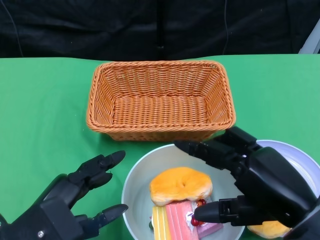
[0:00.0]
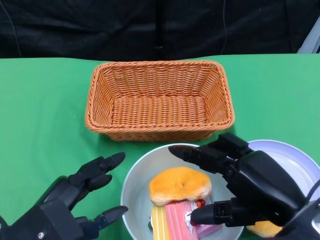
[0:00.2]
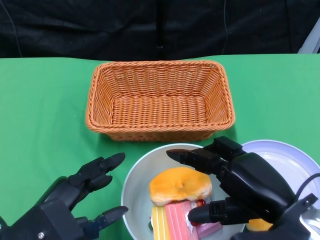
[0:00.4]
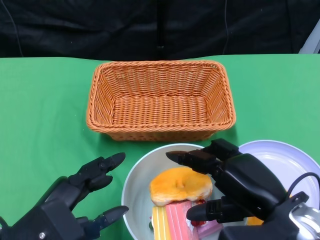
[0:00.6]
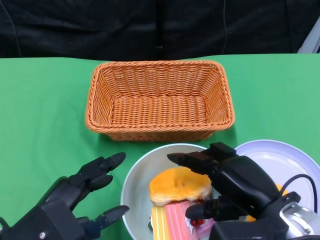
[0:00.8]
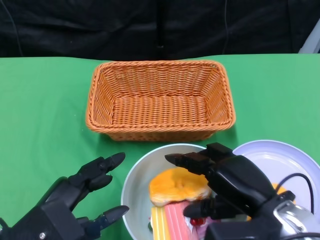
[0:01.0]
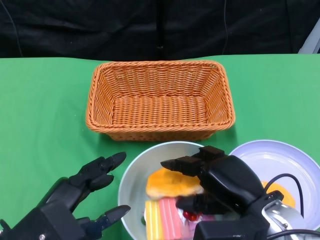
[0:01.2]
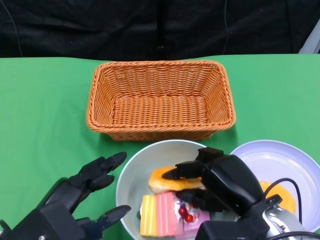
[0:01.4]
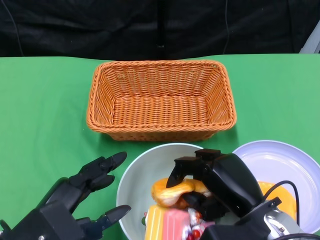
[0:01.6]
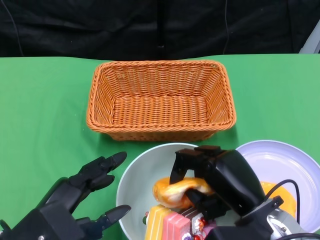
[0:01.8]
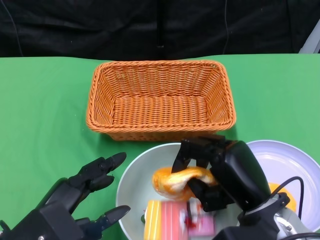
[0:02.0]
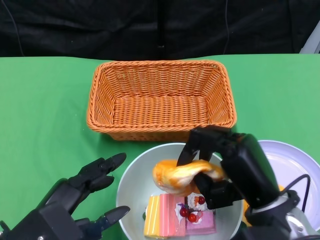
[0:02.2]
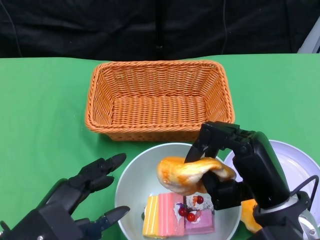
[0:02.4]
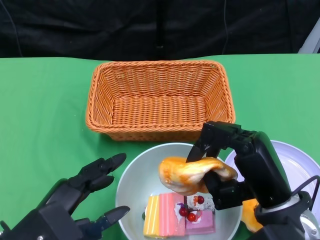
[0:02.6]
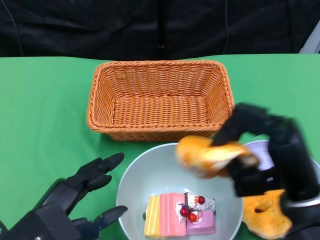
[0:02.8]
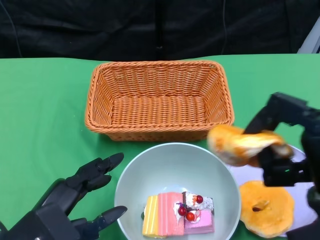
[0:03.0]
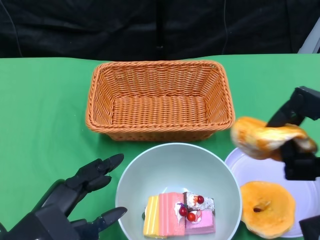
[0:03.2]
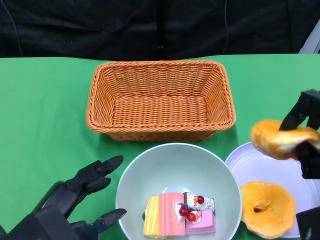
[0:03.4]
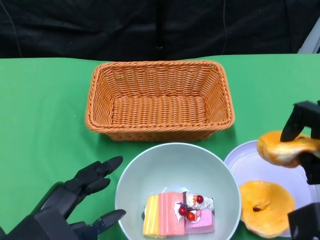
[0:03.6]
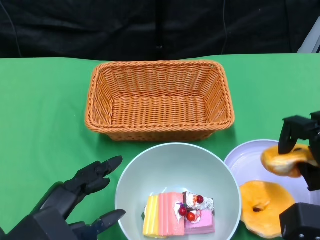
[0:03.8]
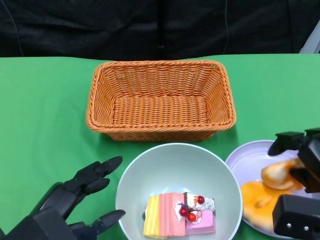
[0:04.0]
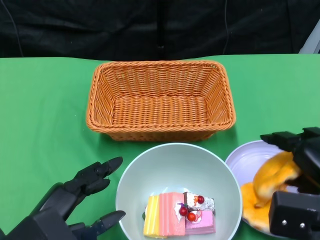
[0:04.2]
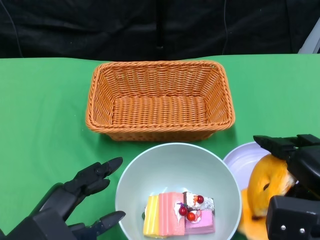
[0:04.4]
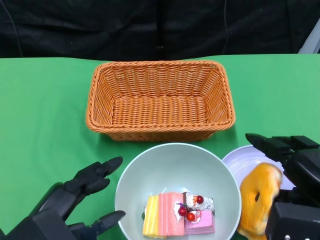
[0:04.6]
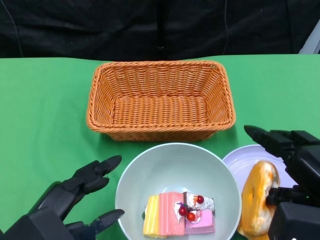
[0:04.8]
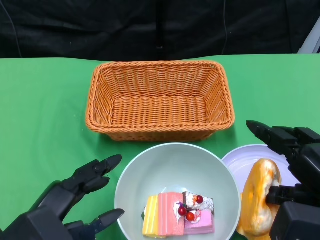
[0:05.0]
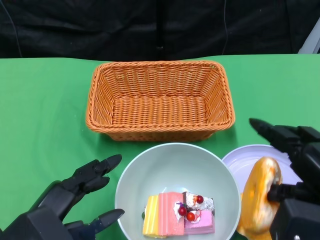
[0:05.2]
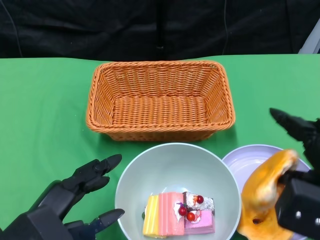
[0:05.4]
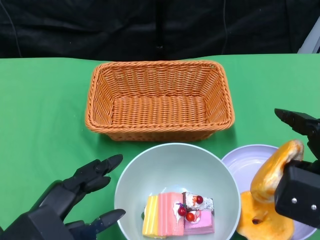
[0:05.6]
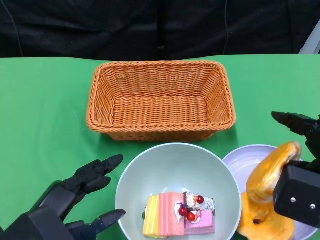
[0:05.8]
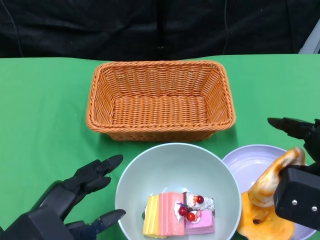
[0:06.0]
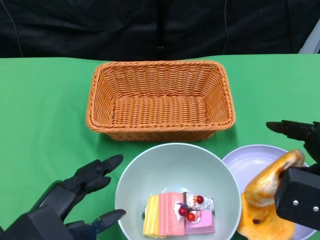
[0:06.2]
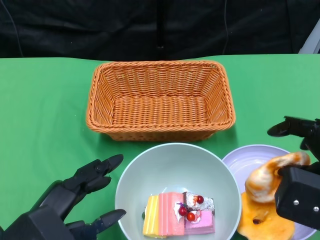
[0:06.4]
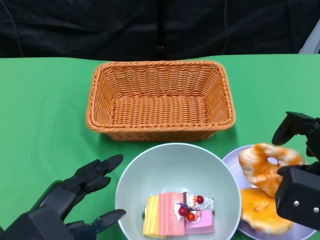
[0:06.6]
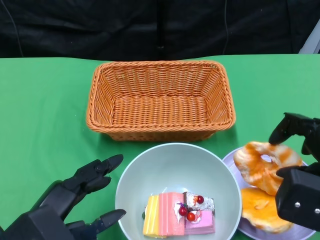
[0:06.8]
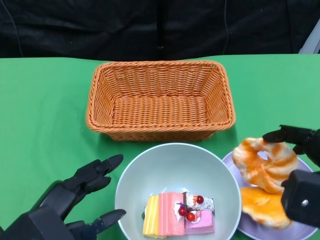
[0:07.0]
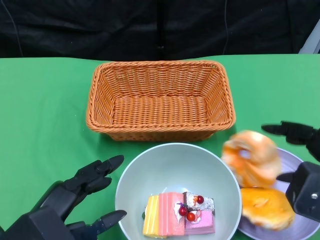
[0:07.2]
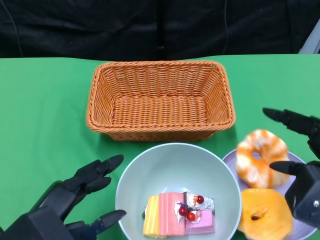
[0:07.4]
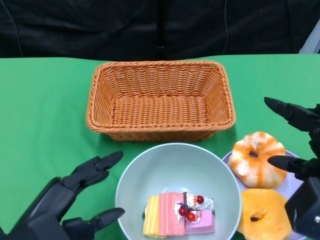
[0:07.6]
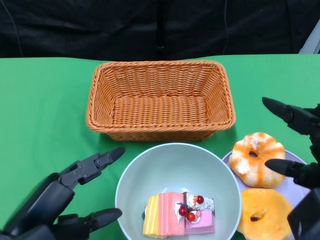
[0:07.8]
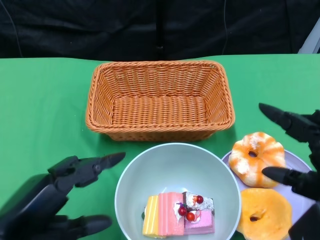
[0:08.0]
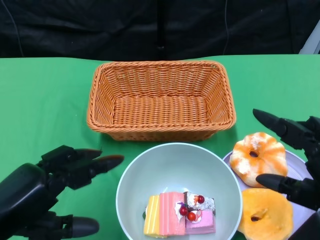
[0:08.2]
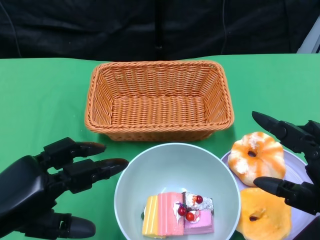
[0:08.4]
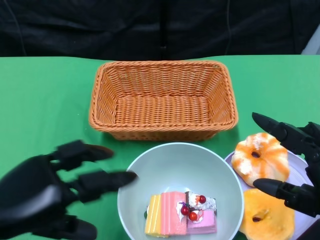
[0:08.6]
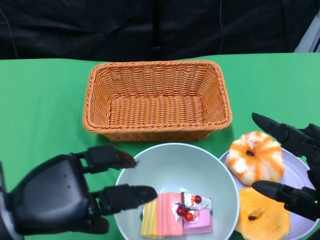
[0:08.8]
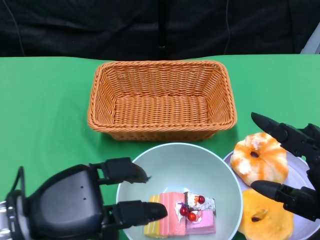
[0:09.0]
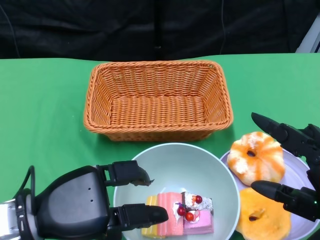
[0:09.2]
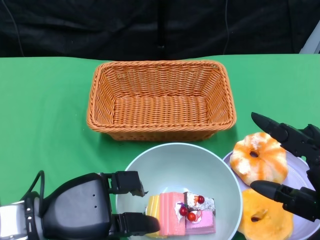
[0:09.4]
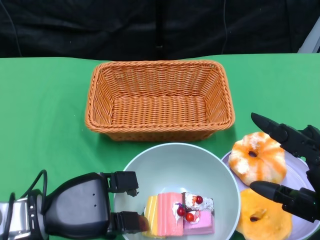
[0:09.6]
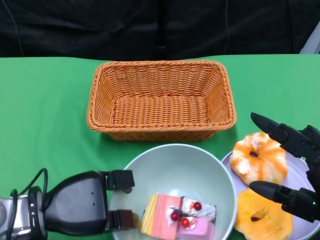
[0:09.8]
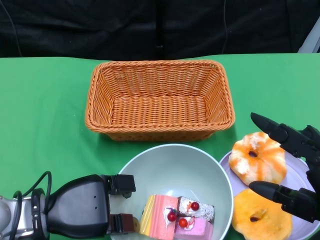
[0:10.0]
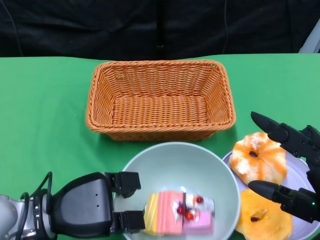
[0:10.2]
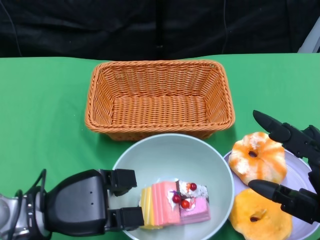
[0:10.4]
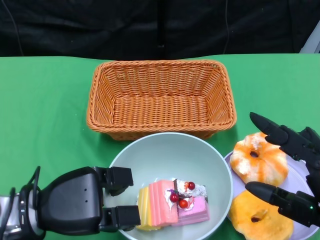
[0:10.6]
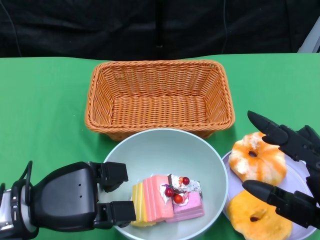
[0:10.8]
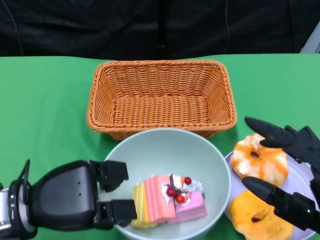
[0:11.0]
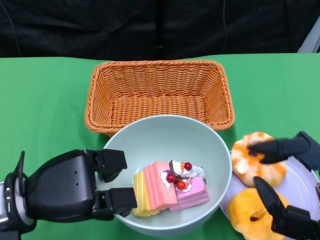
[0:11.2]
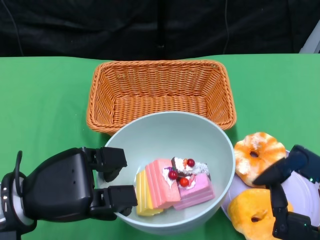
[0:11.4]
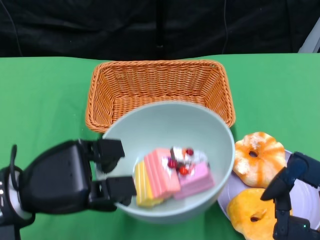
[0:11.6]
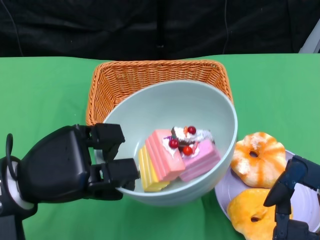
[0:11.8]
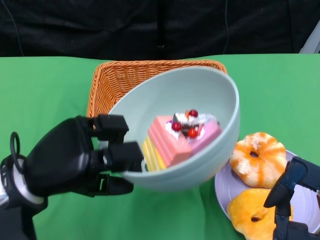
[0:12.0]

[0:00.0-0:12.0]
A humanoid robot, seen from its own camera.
Step, 0:00.0 to 0:07.6: Pick up the bread with the right gripper and place it on the plate.
Step, 0:08.0 to 0:10.2: Grasp the bowl with the left gripper.
0:00.0 to 0:01.6: The right hand heads downward, covering some 10 cm.
0:01.6 to 0:03.0: The right hand is displaced upward and to the right by approximately 10 cm.
0:04.4 to 0:06.0: The hands stay close to where they were, moving slightly.
0:06.0 to 0:07.6: The hands make only small movements.
0:07.6 to 0:09.0: The left hand goes roughly 5 cm forward.
0:09.0 to 0:10.4: The left hand heads downward, covering some 5 cm.
0:10.4 to 0:12.0: The left hand heads upward, covering some 5 cm.

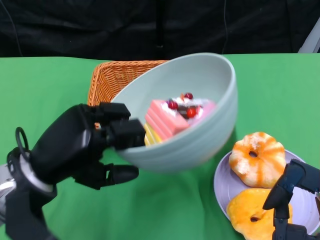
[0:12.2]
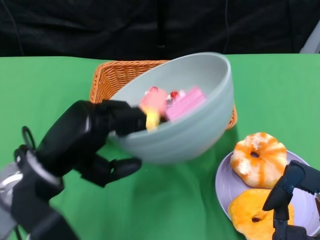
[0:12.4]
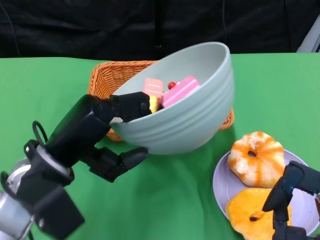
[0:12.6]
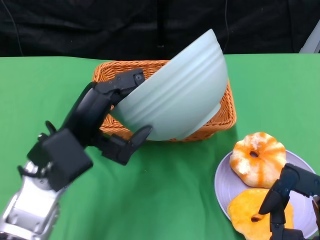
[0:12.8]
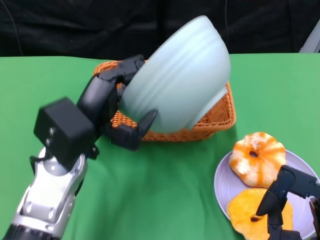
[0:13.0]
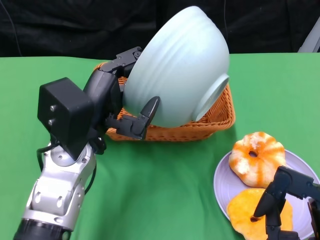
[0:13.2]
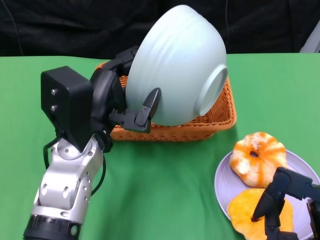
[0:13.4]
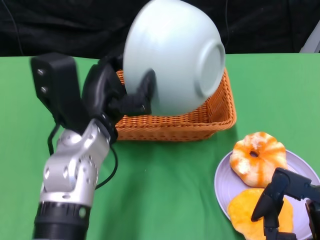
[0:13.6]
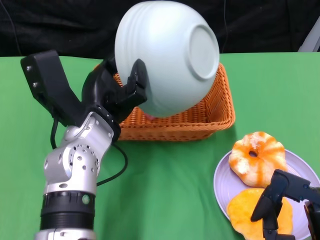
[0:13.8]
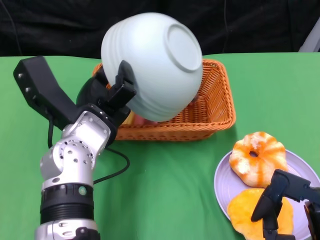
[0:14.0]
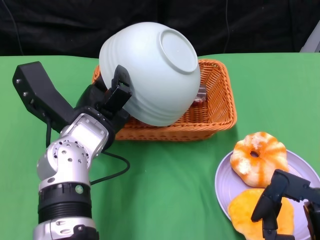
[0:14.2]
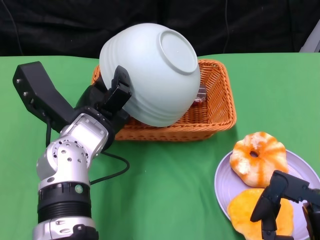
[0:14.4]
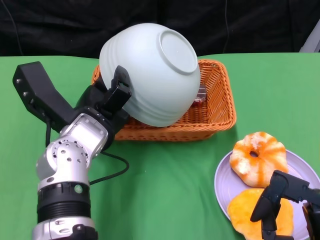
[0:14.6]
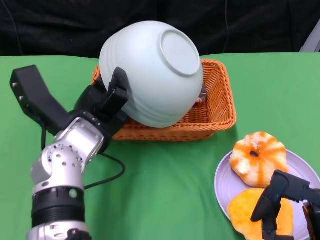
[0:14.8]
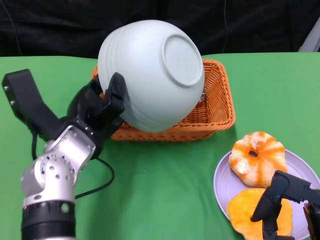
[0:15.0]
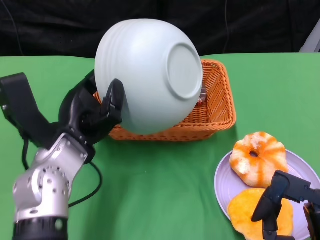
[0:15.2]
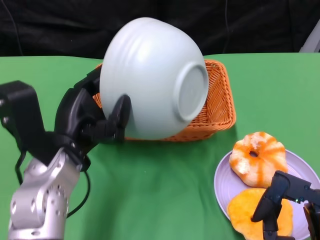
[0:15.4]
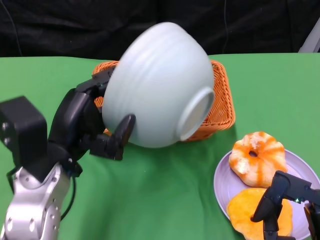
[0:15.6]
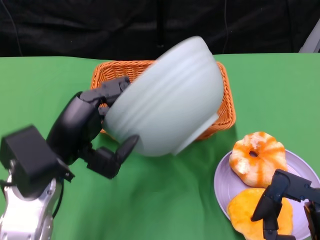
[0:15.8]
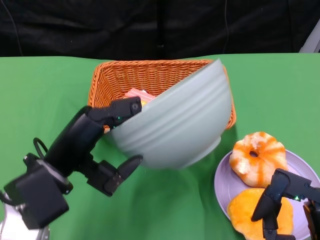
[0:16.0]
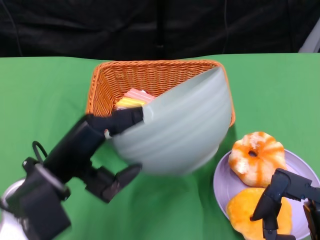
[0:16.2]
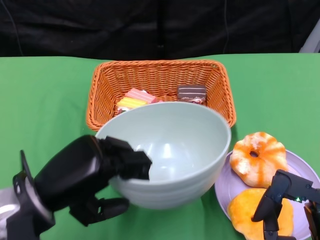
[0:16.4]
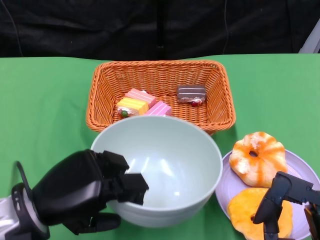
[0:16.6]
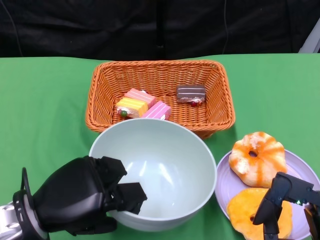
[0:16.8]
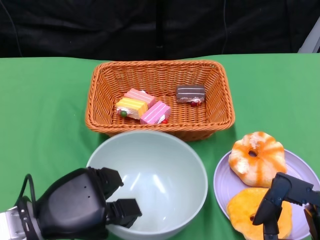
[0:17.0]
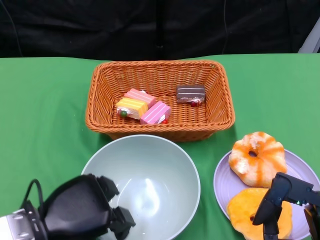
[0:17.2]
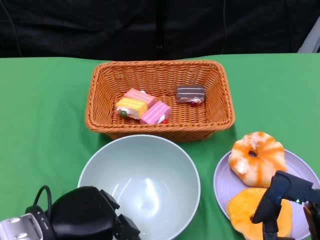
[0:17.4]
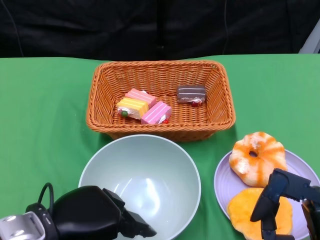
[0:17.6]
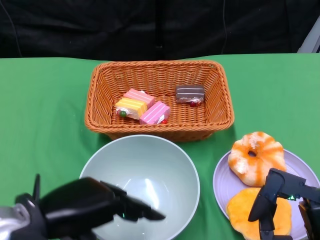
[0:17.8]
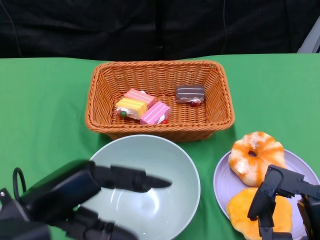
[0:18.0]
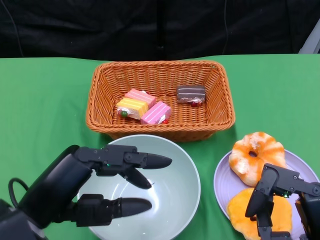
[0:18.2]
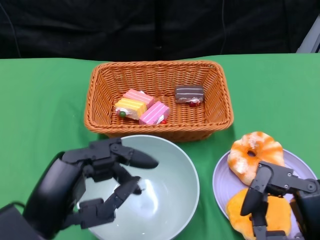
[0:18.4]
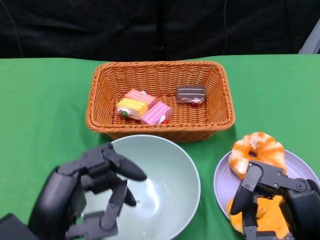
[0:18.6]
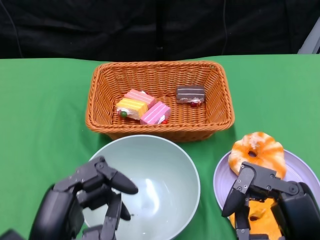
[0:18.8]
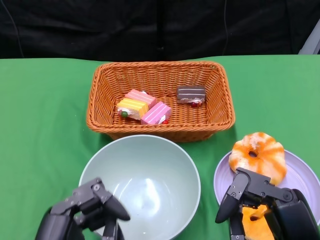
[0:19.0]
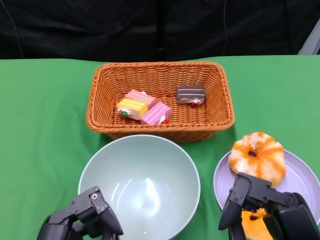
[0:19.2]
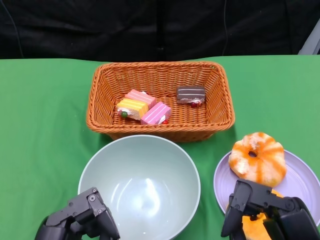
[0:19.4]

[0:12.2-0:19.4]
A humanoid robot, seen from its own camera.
Step, 0:12.2 to 0:14.6: Pour the cake into the basket with the left gripper.
Step, 0:15.0 to 0:17.2: Place the bowl on the table with the left gripper.
0:12.2 to 0:13.6: The left hand travels to the right and forward by approximately 10 cm.
0:15.0 to 0:16.6: The left hand goes approximately 10 cm backward and to the left.
0:16.6 to 0:18.0: The left hand moves roughly 5 cm.
0:18.0 to 0:19.4: The left hand goes some 10 cm downward and backward.

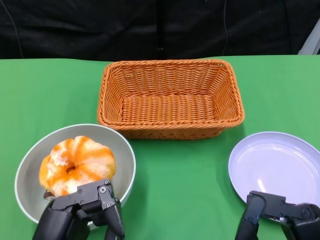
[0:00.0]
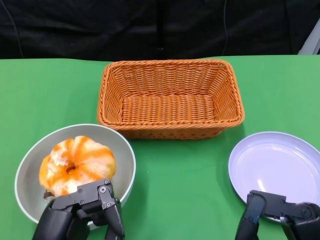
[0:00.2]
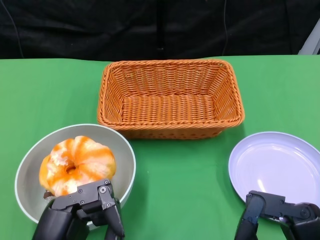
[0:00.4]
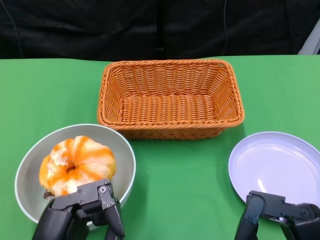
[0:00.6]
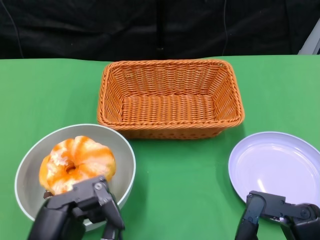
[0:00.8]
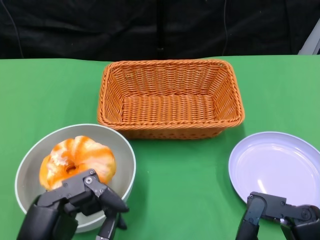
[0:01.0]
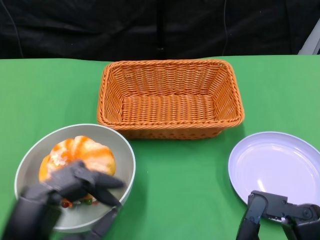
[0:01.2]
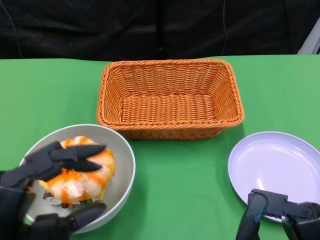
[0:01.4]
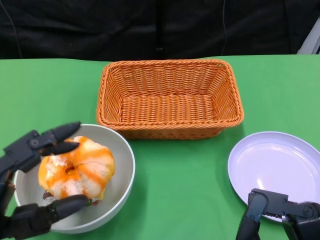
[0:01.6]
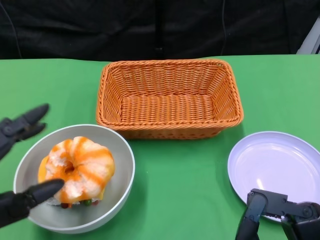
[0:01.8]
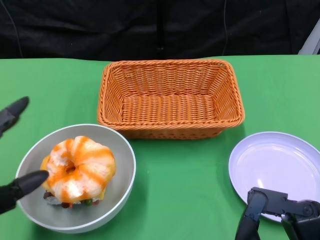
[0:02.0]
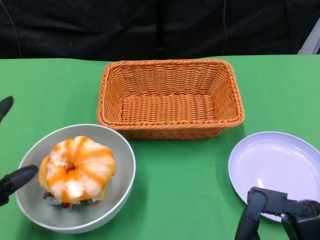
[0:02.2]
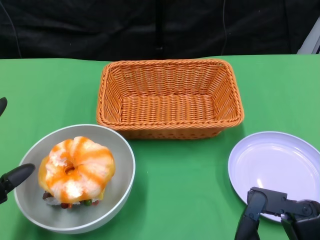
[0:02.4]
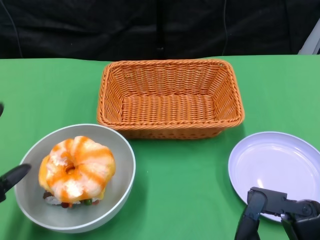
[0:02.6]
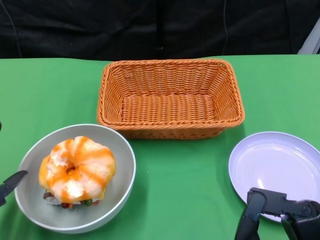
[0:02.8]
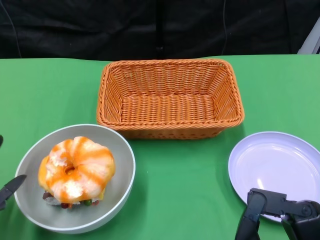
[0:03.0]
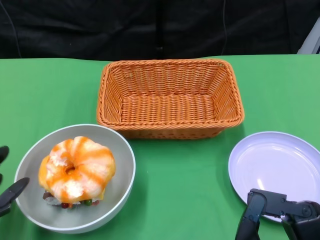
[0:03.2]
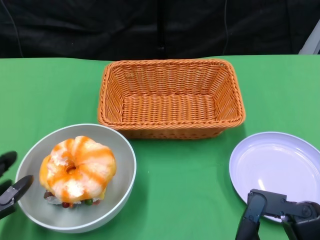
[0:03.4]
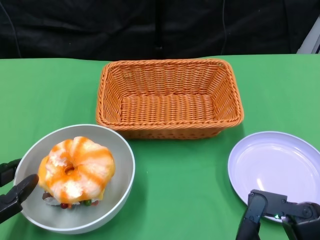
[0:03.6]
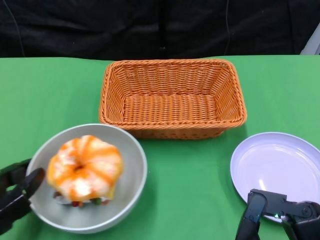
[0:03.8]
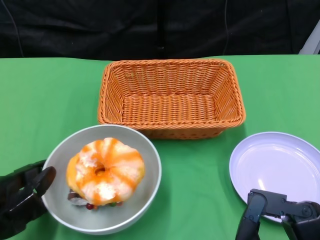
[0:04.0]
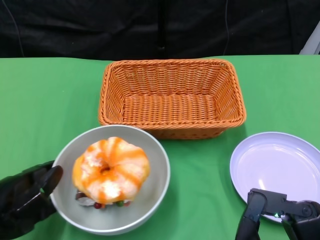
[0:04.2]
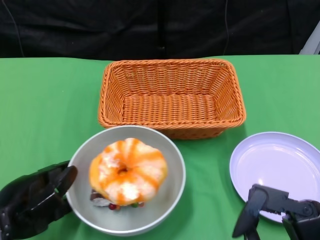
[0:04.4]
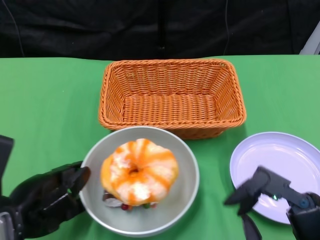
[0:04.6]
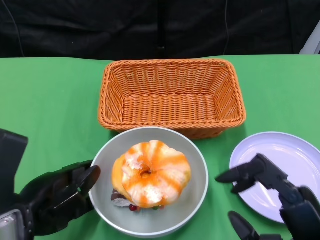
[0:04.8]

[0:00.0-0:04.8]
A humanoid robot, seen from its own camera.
0:01.6 to 0:03.2: The left hand goes some 5 cm to the left.
0:03.2 to 0:04.8: The left hand moves to the right, approximately 5 cm.
